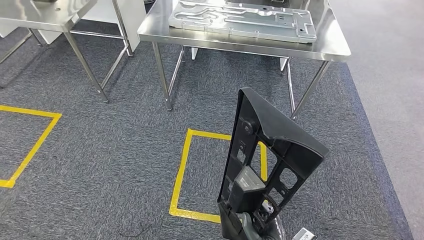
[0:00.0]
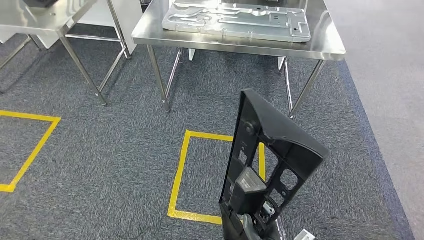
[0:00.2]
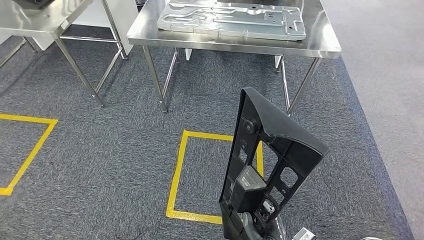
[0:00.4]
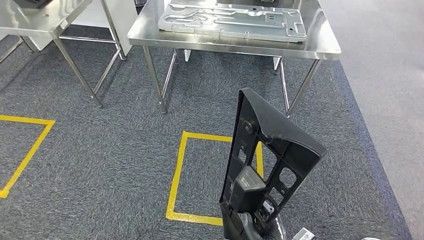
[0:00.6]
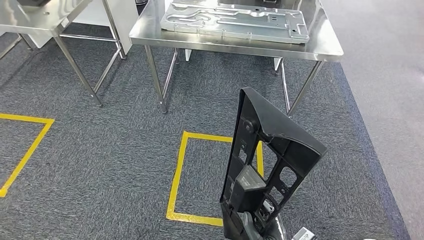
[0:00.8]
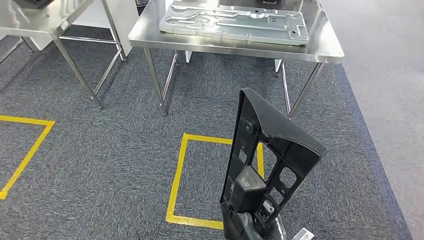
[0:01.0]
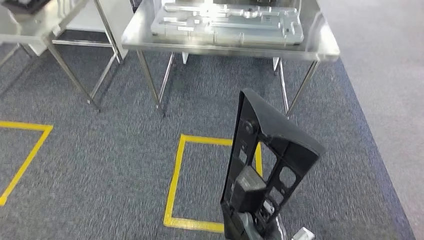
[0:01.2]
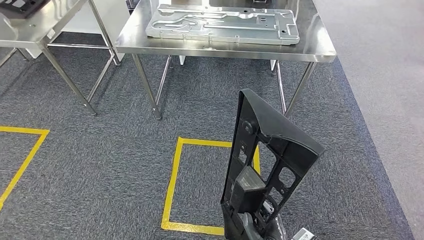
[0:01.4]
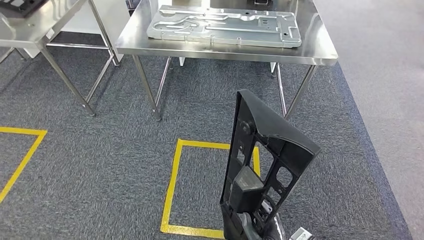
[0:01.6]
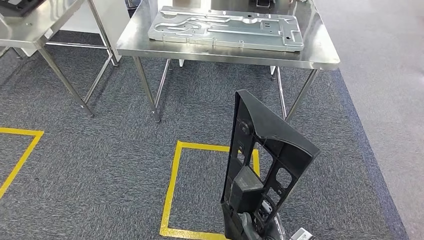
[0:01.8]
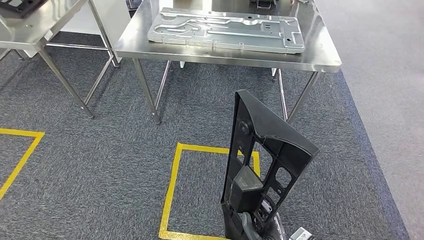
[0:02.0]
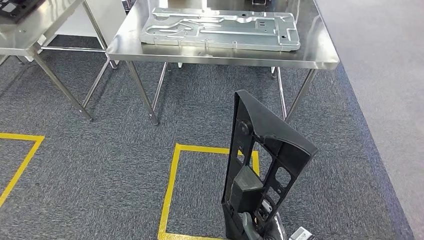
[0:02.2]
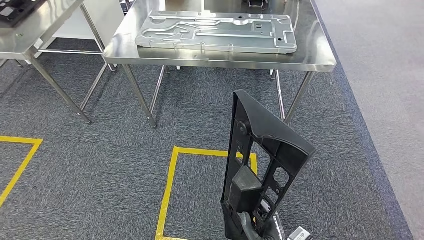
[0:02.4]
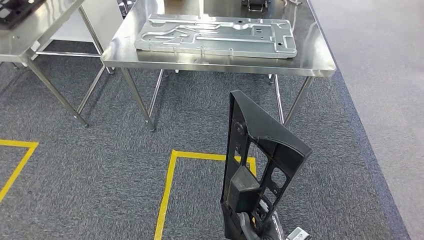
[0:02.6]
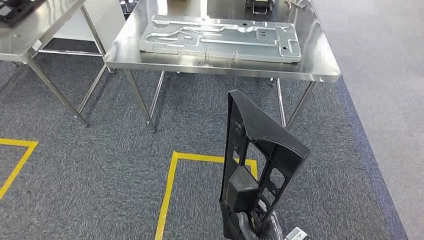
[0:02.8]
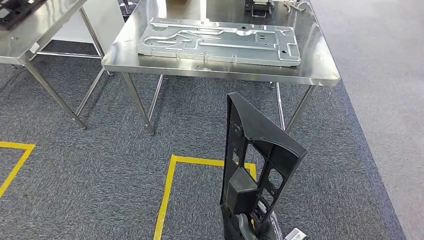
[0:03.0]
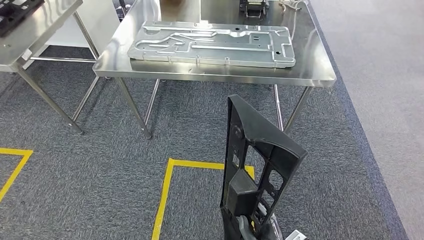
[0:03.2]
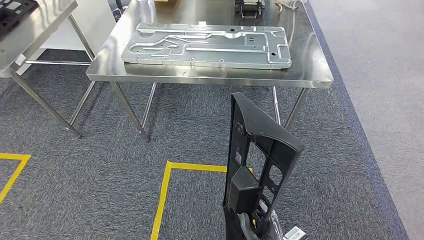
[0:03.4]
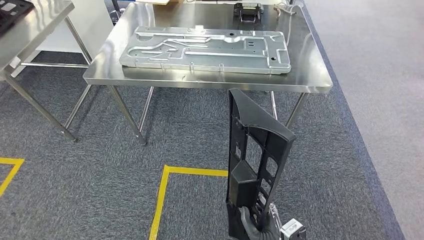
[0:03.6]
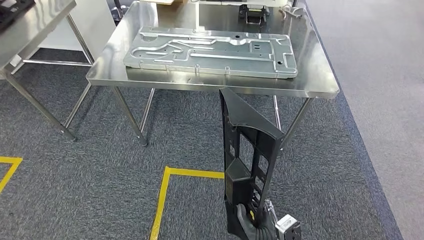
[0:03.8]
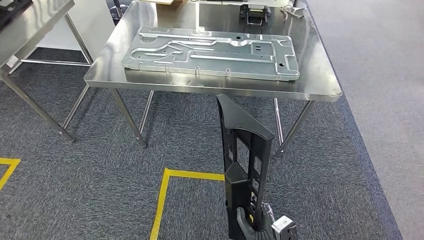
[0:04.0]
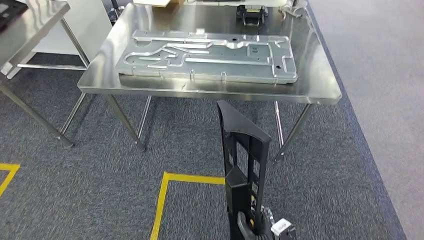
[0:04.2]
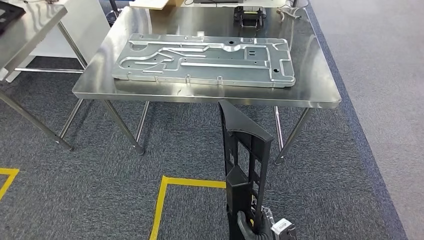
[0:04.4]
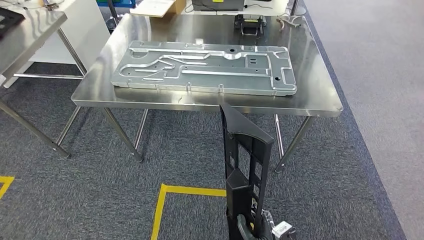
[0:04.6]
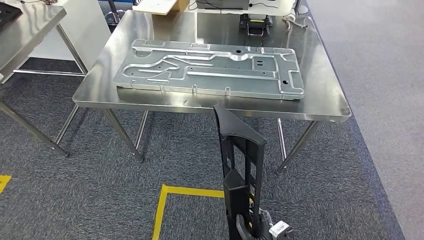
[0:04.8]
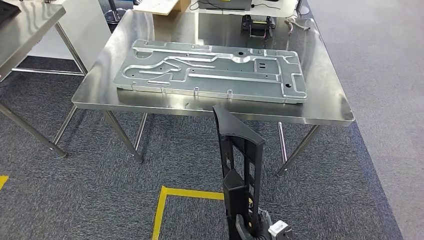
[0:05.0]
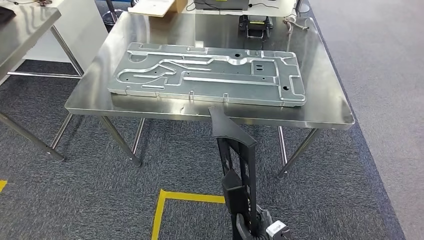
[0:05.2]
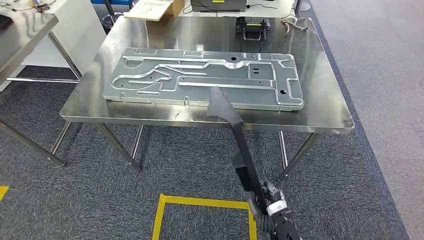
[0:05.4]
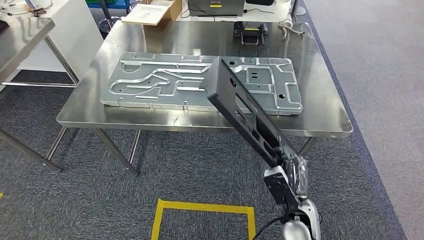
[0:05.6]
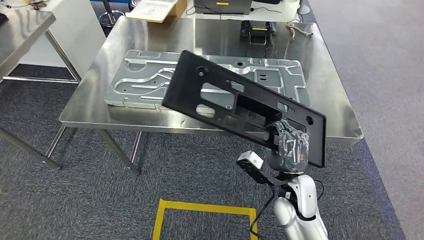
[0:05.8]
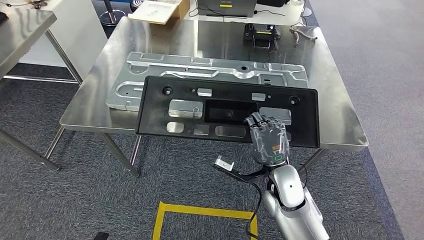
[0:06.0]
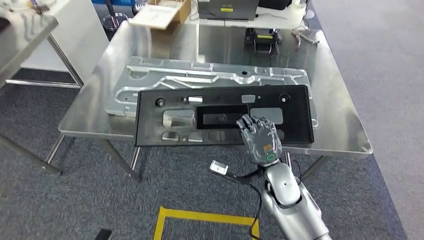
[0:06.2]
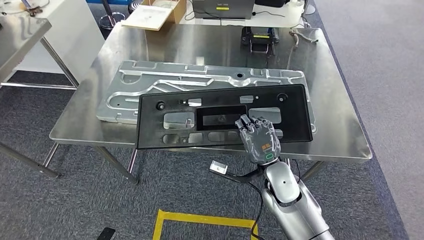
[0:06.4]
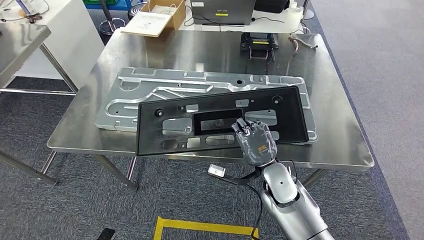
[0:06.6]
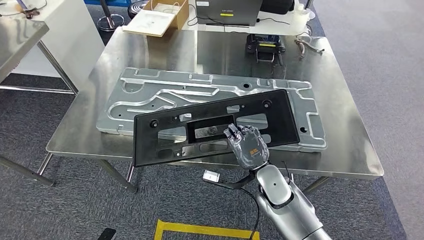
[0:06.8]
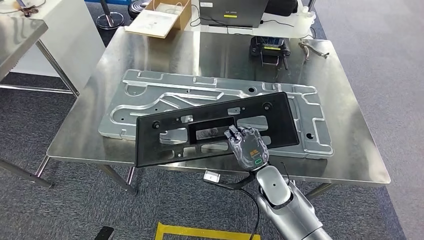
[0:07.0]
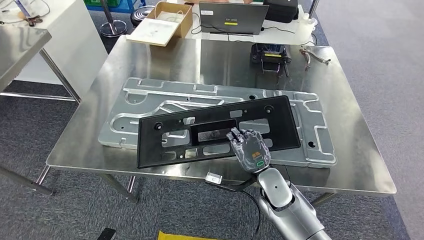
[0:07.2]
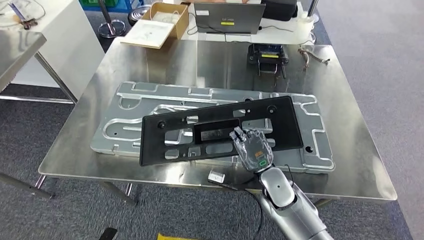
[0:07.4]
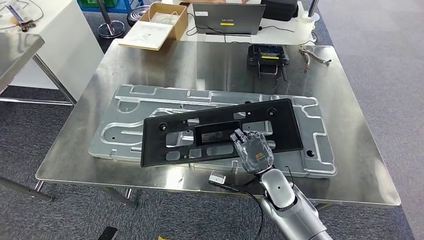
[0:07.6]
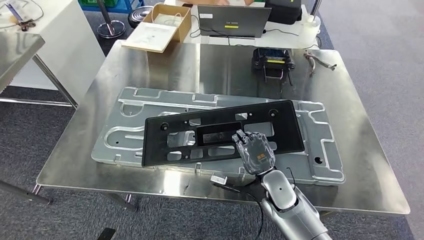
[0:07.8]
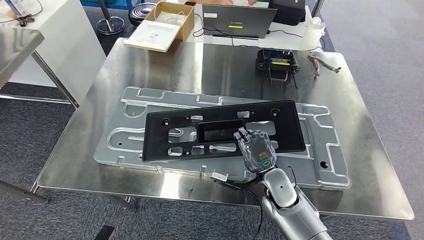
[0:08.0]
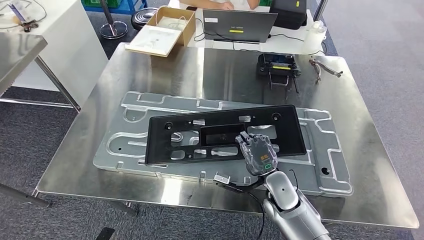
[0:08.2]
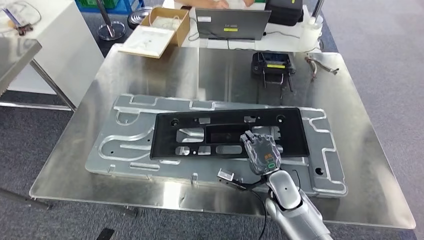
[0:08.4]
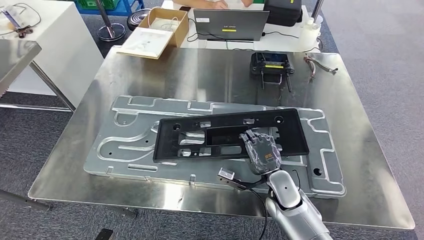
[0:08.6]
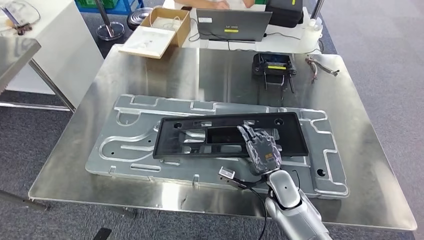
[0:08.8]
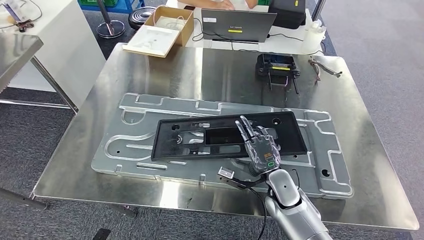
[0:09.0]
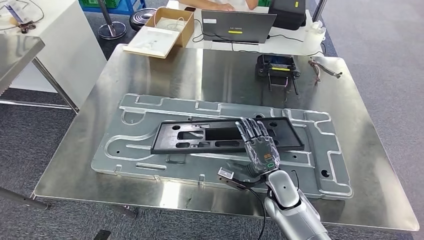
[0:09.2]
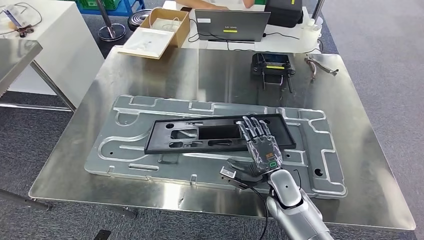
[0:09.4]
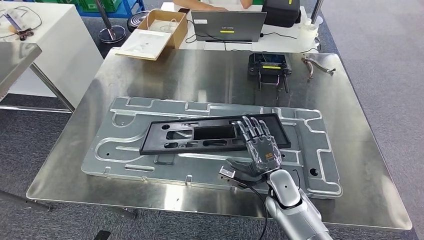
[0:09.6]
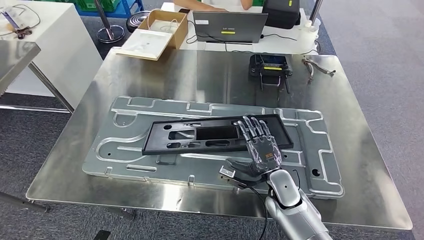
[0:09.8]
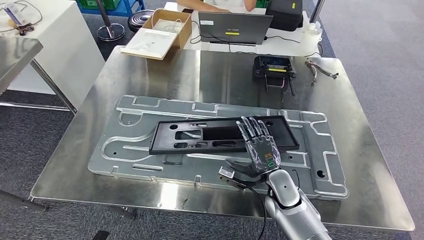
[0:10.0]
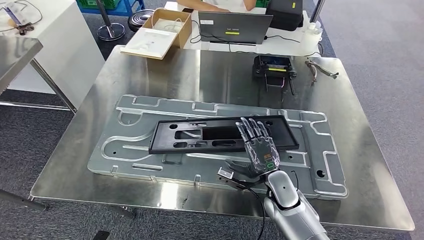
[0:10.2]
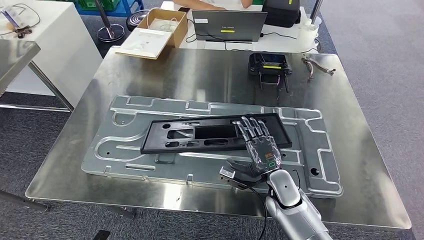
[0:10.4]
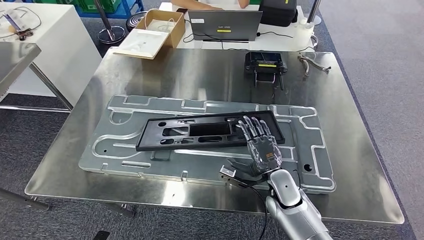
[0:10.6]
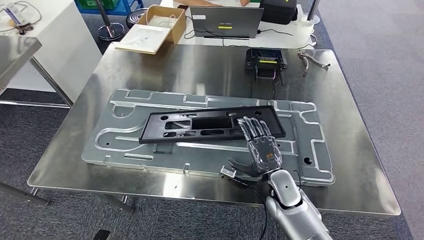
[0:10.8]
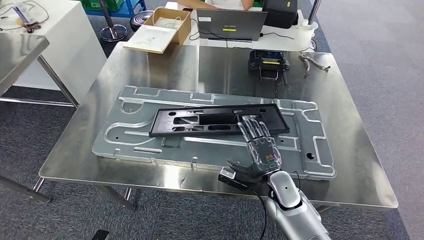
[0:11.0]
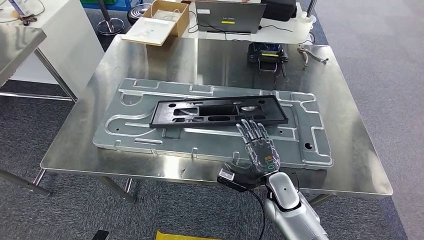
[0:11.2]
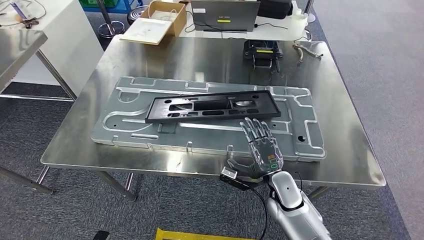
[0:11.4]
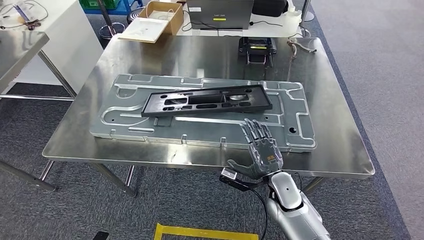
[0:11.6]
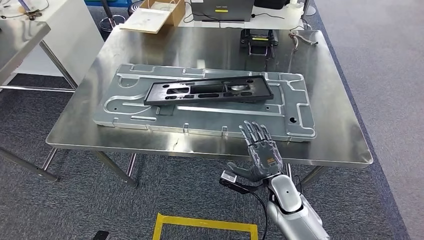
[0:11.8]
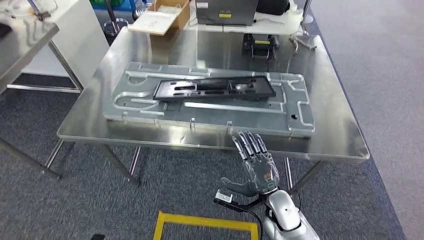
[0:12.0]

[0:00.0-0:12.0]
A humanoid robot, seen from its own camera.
Step, 0:00.0 to 0:05.0: Move the large material to the workbench.
Step, 0:05.2 to 0:12.0: Insert the large material into the corresponding slot on the workbench.

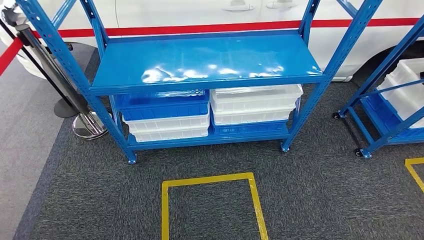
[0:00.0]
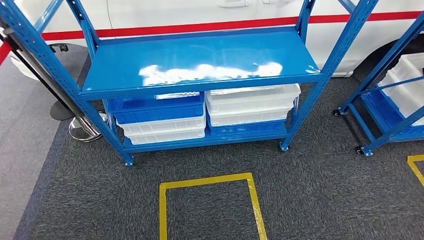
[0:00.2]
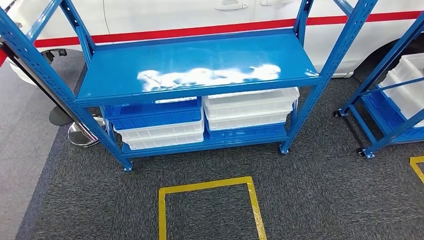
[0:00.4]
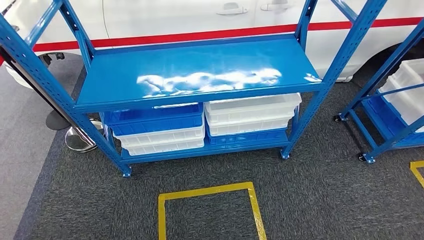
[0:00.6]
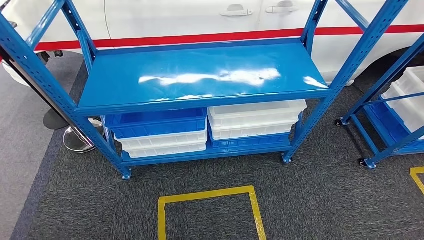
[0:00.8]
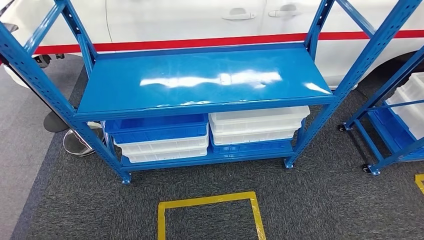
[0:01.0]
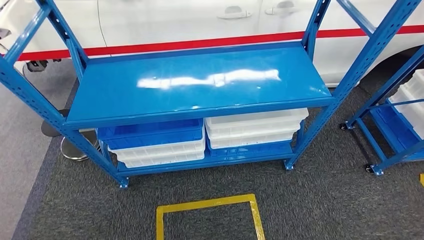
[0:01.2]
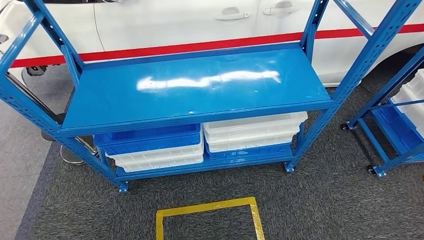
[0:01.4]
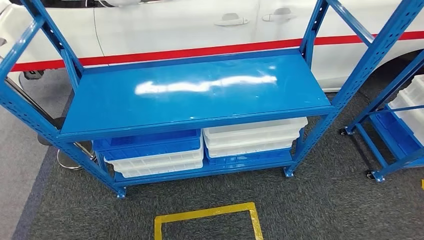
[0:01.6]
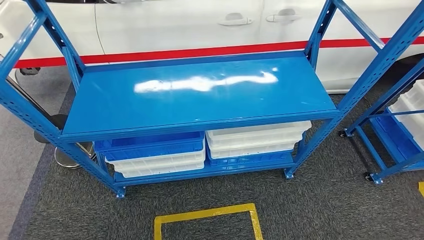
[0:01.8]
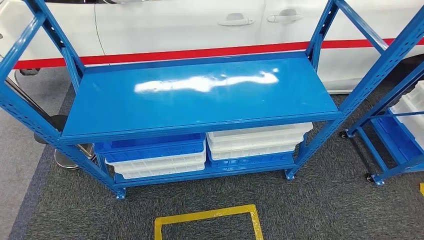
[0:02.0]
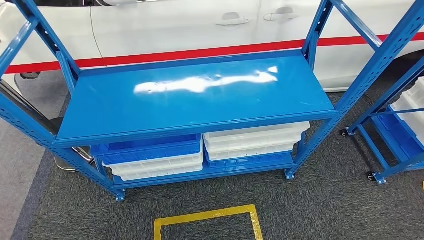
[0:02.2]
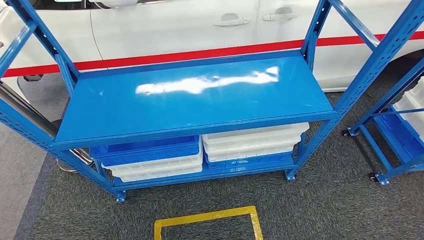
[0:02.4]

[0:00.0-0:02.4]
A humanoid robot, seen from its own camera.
Step, 0:00.0 to 0:02.2: Move to the initial position of the shelf.
